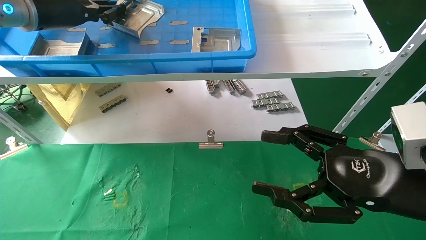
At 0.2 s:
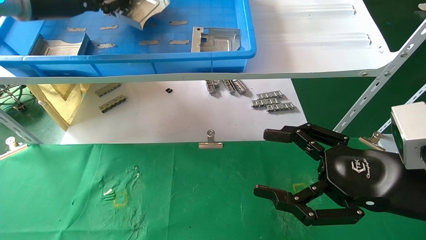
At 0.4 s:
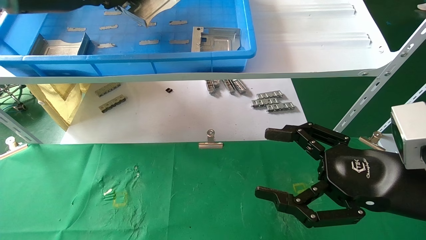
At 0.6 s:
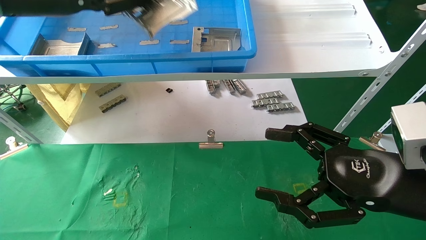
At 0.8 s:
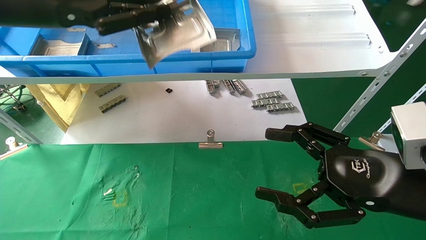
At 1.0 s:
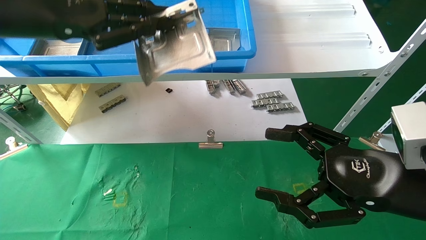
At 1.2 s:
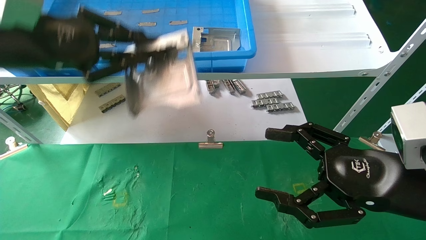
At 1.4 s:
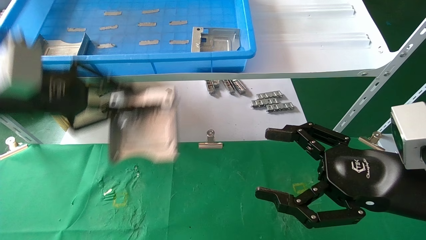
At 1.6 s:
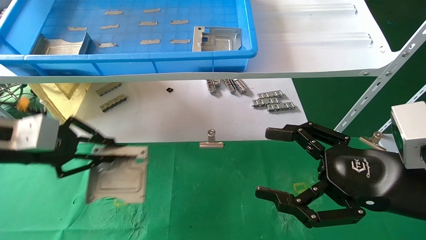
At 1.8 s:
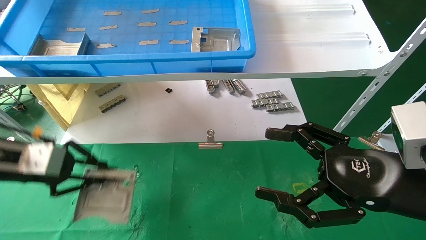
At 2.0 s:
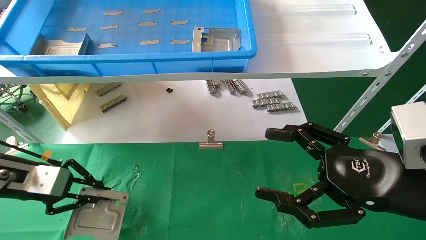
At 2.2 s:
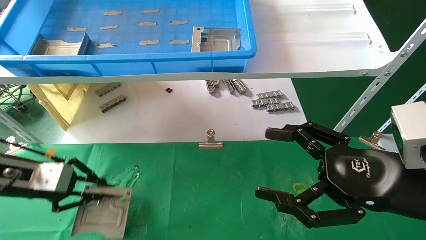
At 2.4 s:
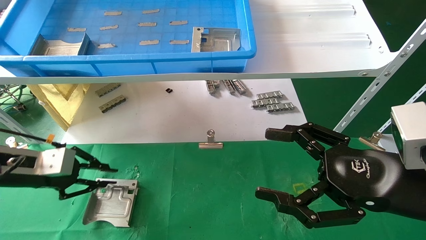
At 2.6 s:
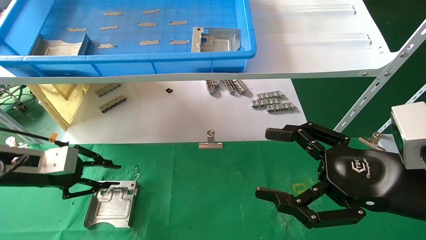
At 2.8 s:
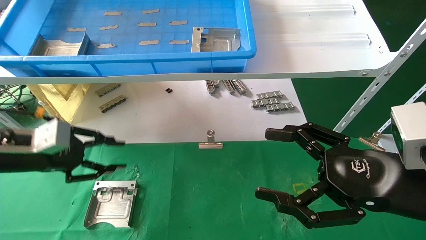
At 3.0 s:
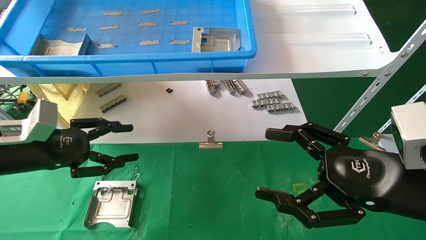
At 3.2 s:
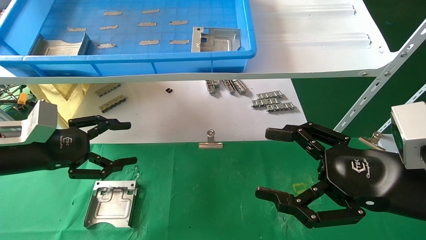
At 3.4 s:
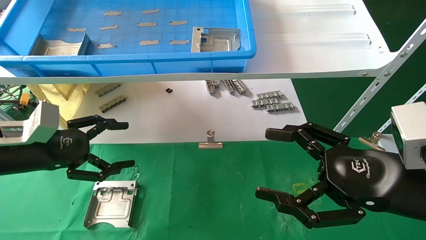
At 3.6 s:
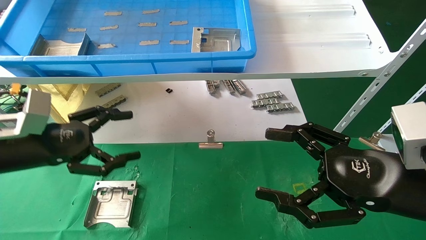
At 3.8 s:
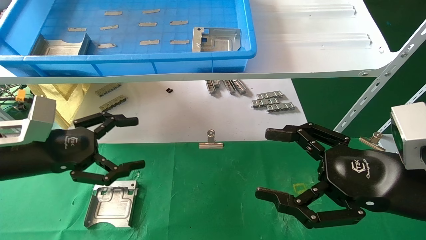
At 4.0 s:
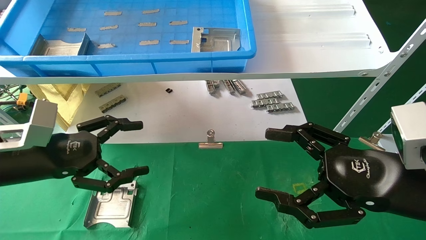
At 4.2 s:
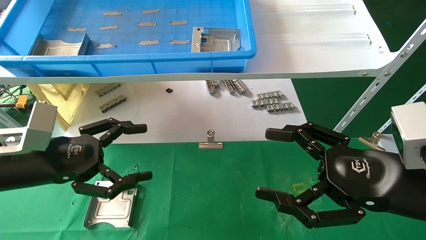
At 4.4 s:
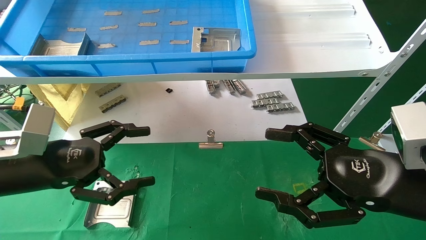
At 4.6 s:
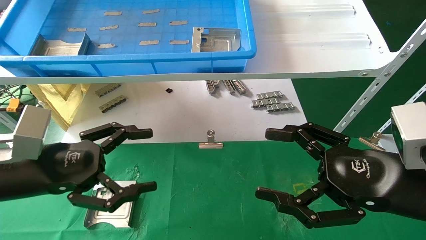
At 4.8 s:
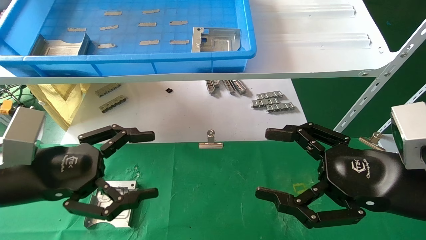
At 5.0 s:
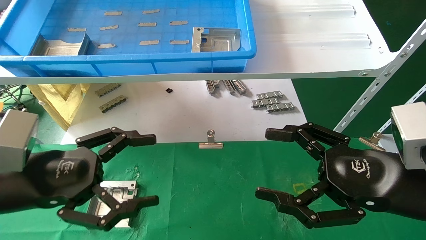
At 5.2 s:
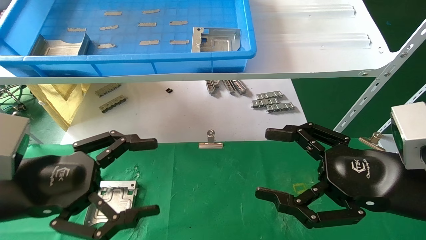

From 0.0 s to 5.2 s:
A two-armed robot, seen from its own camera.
Task of the whole recording: use the mechanical arm to pick up the parts and place them on the table.
Step, from 0.0 s to 2.8 s: Place the hard drive bracket into the box.
From 0.0 s to 1.8 s: The left gripper is displaced downward and backward by some 25 cm.
From 1.8 s to 3.4 s: The left gripper opens its fingers.
From 3.4 s to 5.2 s: The left gripper moves backward and to the right, roughly 10 cm.

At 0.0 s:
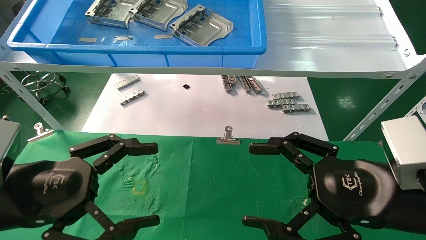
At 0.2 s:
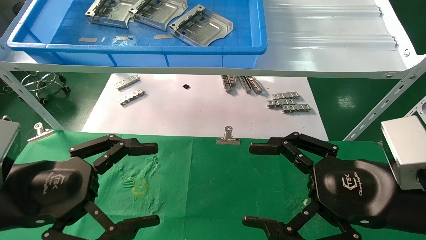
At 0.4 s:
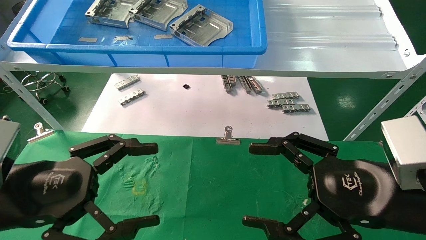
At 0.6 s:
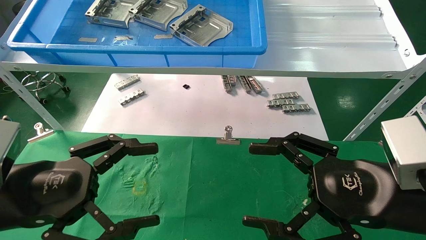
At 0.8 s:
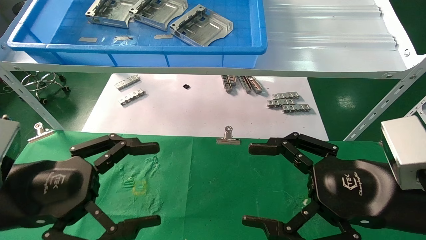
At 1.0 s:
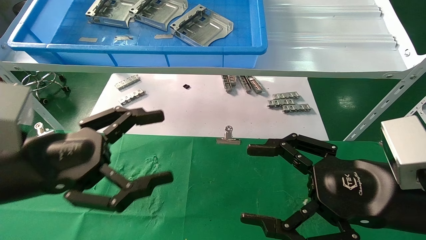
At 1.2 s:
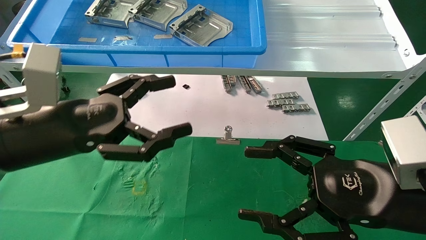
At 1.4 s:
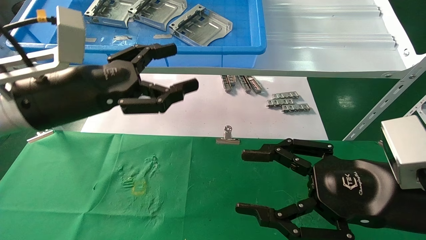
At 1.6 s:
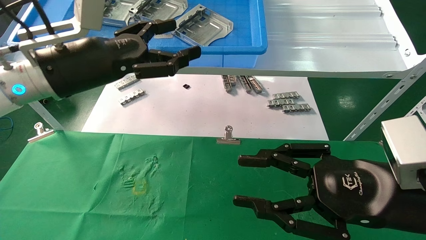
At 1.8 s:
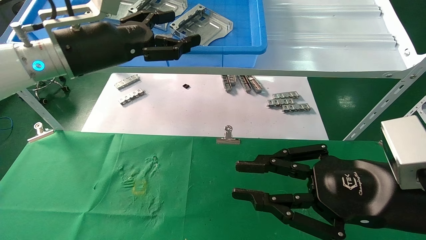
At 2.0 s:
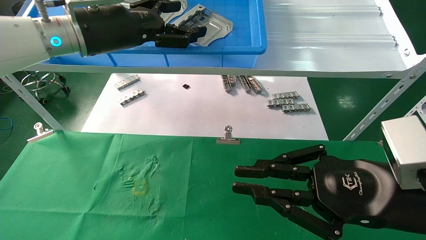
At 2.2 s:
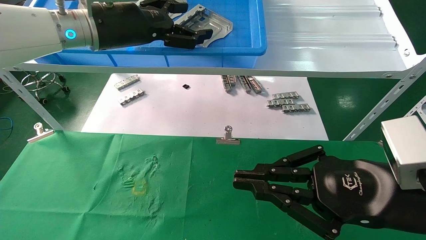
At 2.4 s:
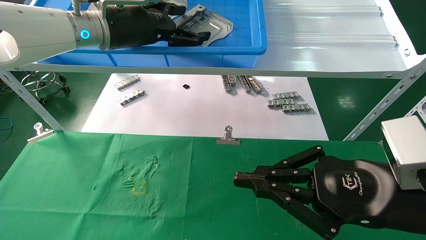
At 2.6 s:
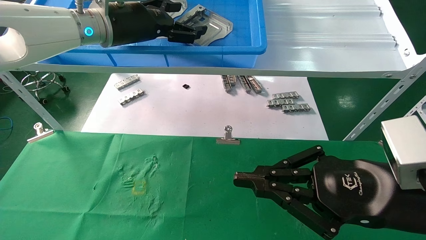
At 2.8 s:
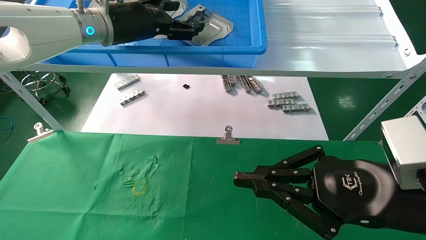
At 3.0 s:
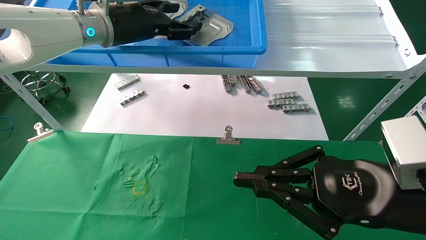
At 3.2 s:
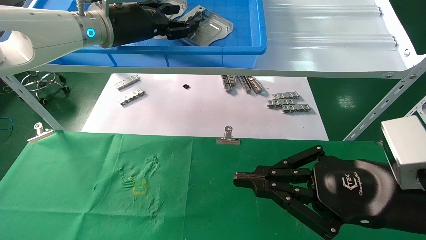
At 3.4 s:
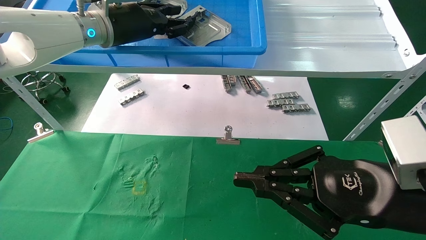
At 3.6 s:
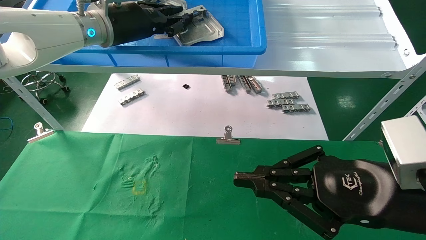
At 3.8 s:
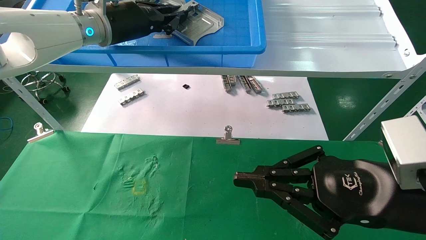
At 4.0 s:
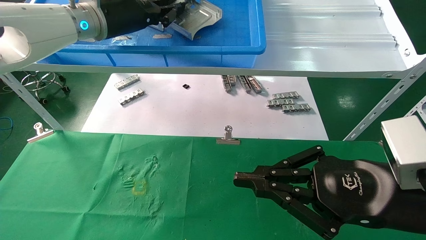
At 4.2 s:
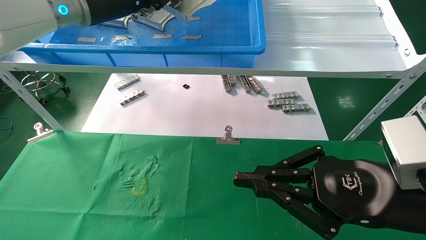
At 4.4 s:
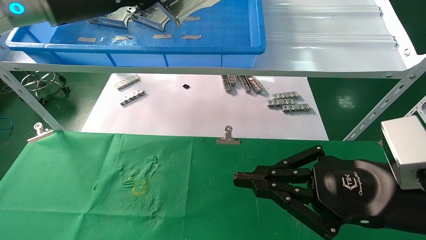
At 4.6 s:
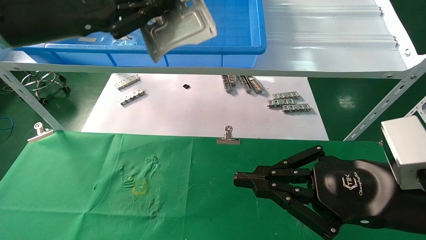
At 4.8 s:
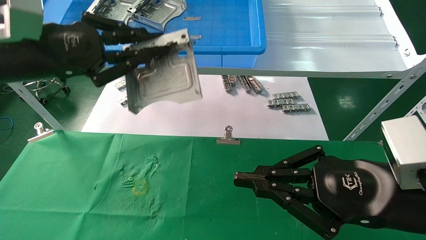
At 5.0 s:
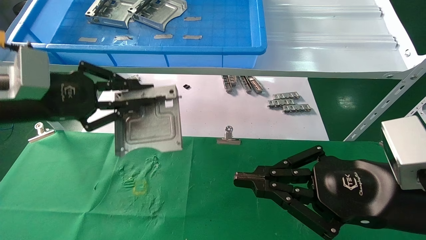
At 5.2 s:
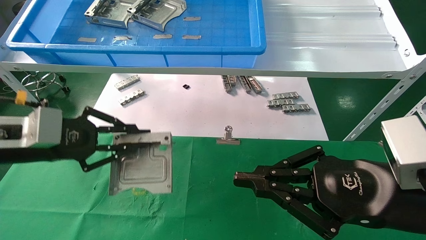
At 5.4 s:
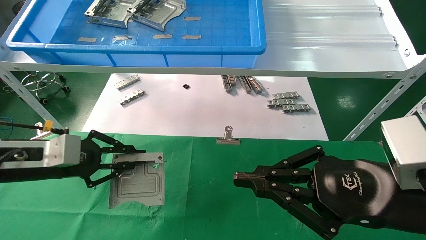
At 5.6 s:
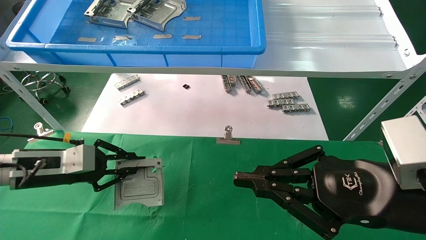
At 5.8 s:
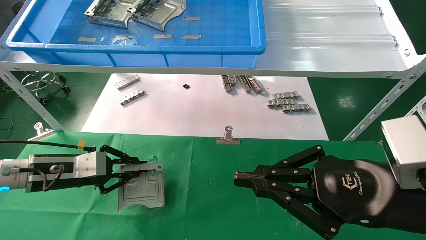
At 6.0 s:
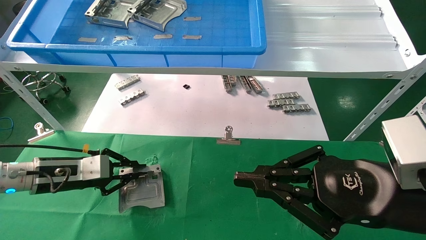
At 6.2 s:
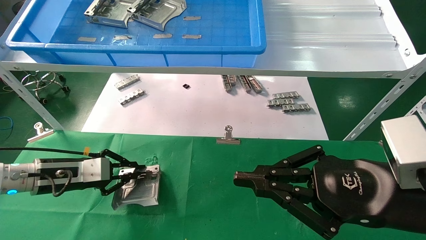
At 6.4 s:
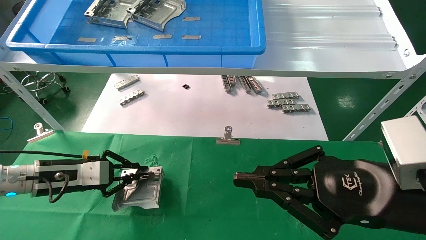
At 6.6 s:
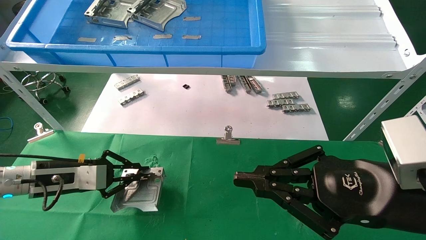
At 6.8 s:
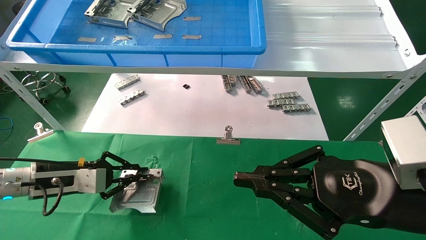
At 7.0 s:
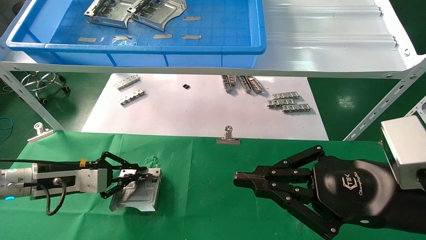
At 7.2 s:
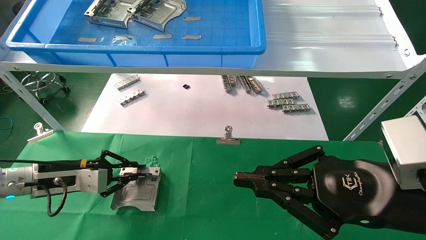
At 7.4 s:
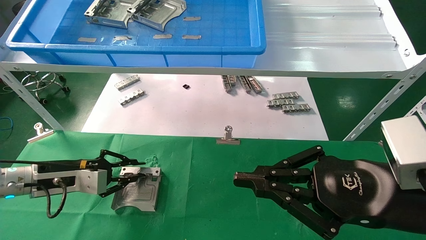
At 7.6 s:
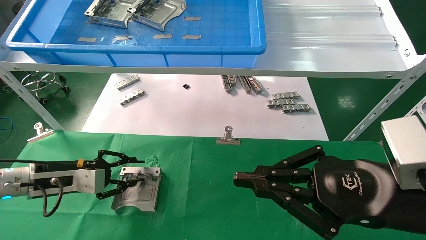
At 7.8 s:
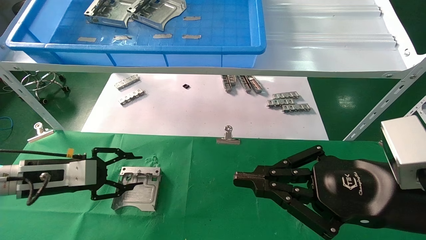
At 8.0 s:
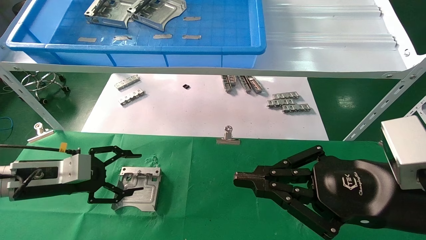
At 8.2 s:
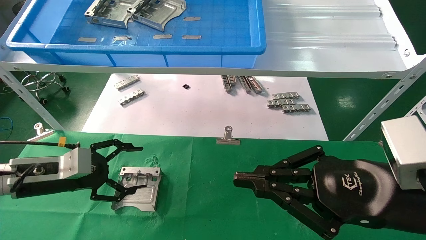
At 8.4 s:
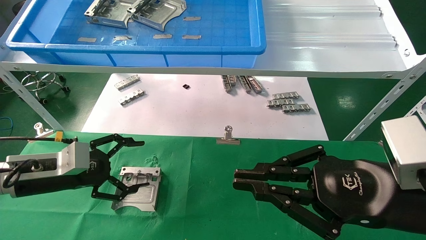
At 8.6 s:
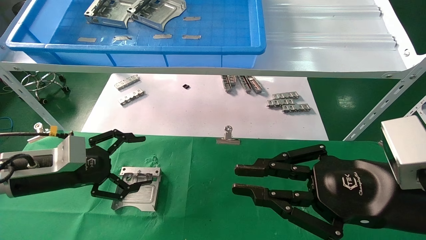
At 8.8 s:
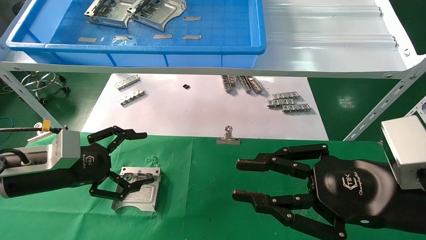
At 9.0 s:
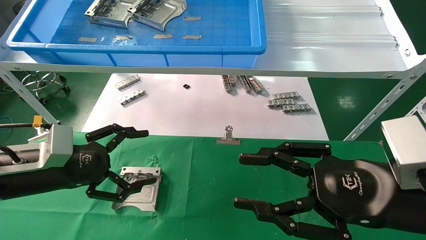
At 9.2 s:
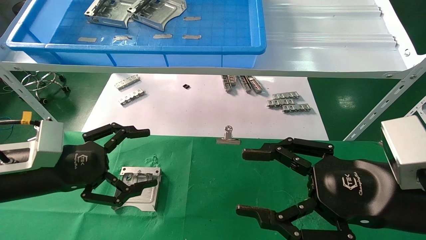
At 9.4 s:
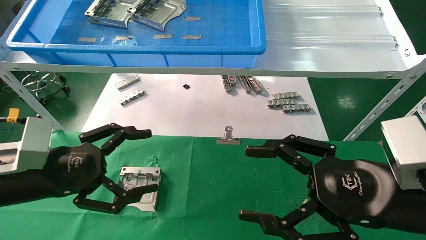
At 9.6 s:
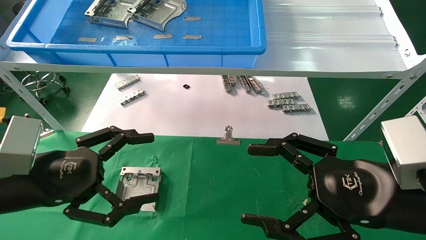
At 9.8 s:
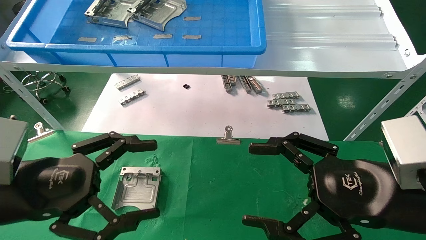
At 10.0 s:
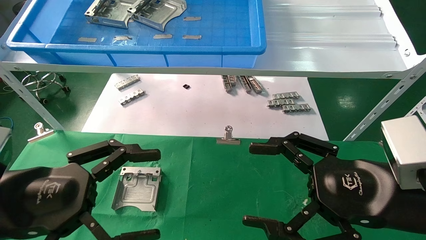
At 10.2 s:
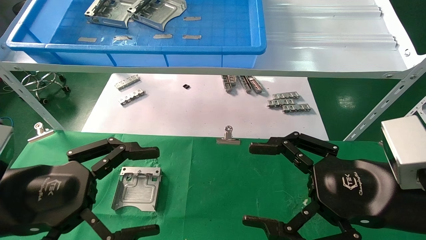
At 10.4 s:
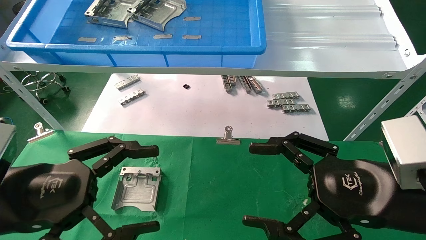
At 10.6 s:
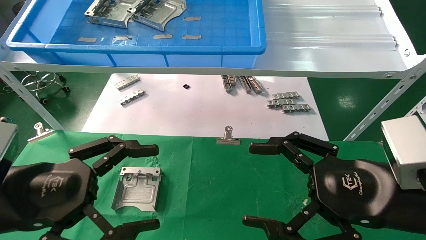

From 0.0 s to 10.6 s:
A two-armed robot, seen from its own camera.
Task of the whole recording: use the mechanical arm to pick up the parts and place them on the table.
Step, from 1.2 s to 4.0 s: Pick up the hard drive bracket from the feeding area.
Step, from 4.2 s to 7.4 s: Place the hard drive bracket into the box.
From 0.0 s to 1.6 s: The left gripper moves forward and upward, approximately 20 cm; the right gripper closes up.
From 1.6 s to 3.0 s: The left gripper moves forward and upward, some 15 cm; the right gripper closes up.
From 3.0 s to 4.6 s: The left gripper travels backward and to the left by roughly 15 cm, and closes its fingers.
From 4.6 s to 6.0 s: The left gripper is displaced downward by about 25 cm.
From 6.0 s to 7.6 s: There are only small adjustments of the grippers.
From 7.6 s to 9.0 s: The left gripper heads backward and upward, covering about 10 cm, and opens its fingers. The right gripper opens.
From 9.0 s to 10.6 s: The left gripper moves backward, some 10 cm; the right gripper opens up.
